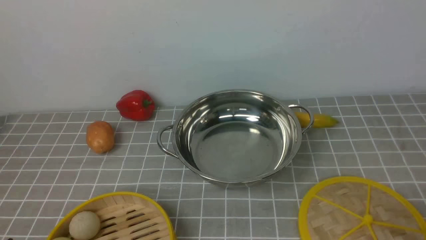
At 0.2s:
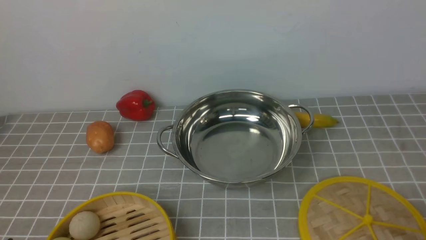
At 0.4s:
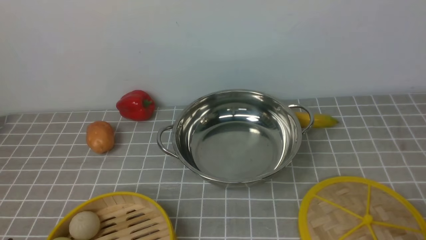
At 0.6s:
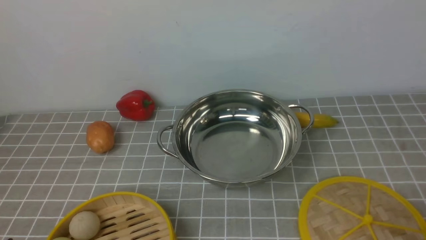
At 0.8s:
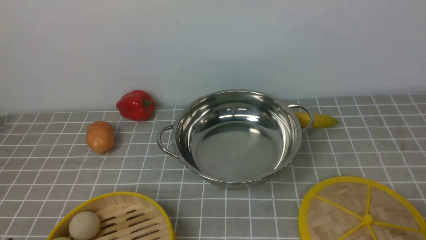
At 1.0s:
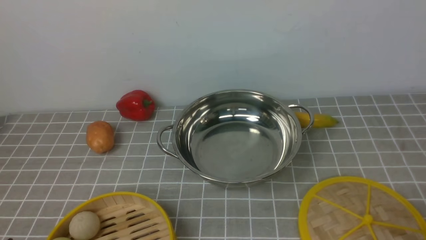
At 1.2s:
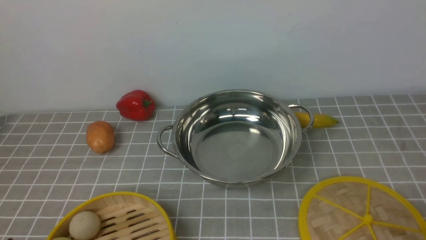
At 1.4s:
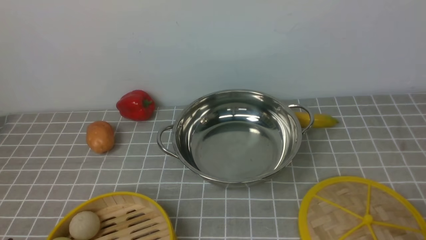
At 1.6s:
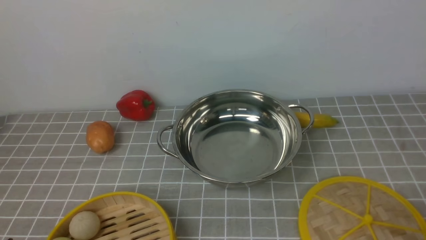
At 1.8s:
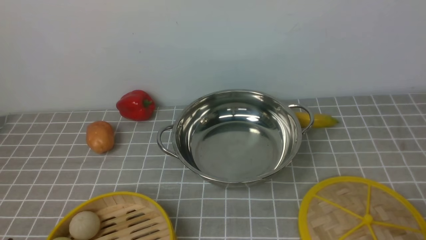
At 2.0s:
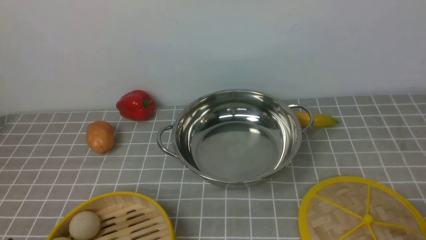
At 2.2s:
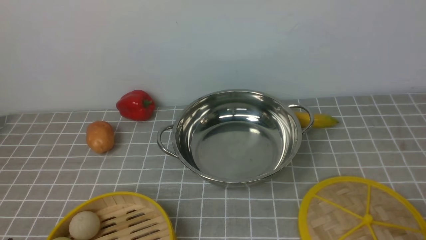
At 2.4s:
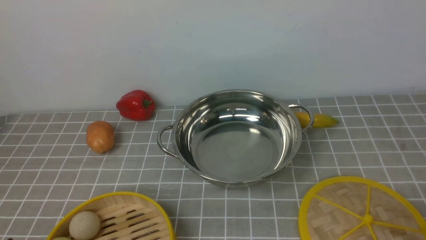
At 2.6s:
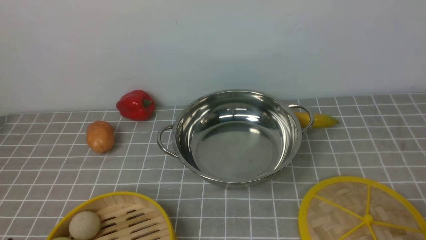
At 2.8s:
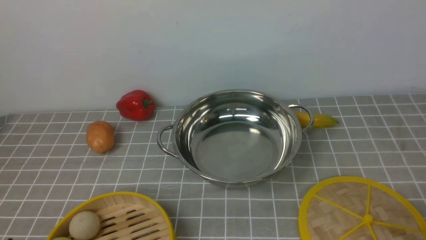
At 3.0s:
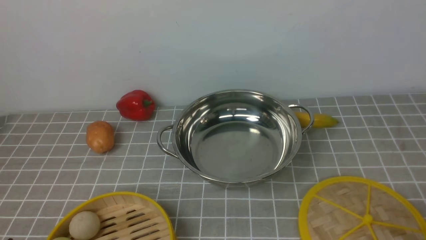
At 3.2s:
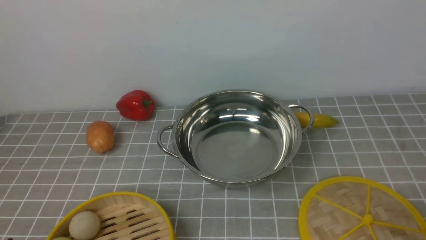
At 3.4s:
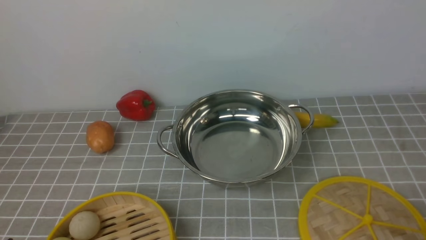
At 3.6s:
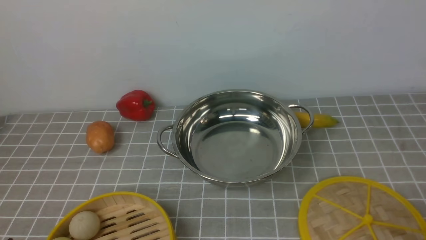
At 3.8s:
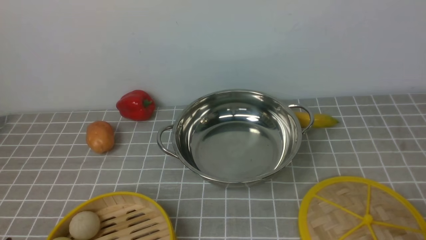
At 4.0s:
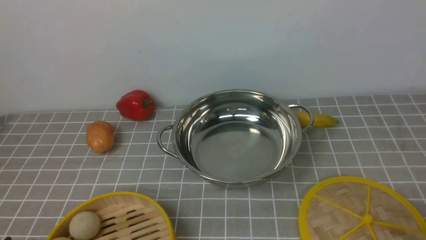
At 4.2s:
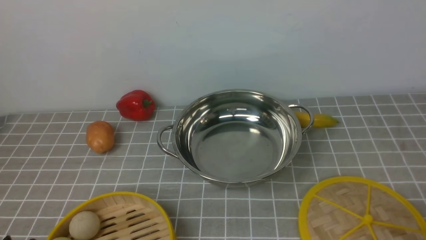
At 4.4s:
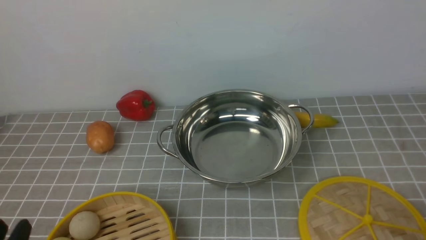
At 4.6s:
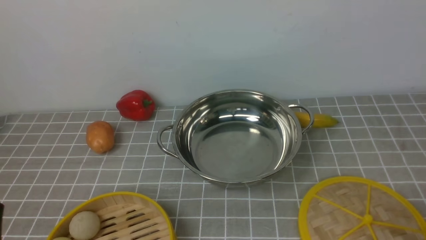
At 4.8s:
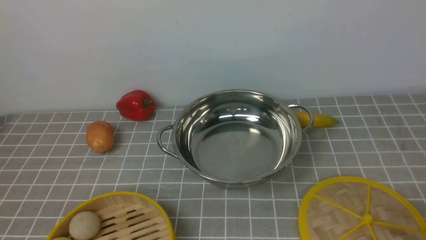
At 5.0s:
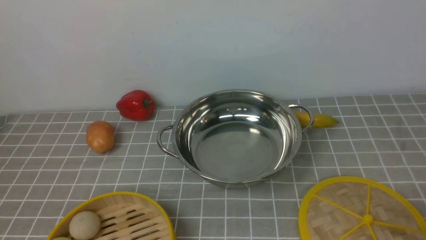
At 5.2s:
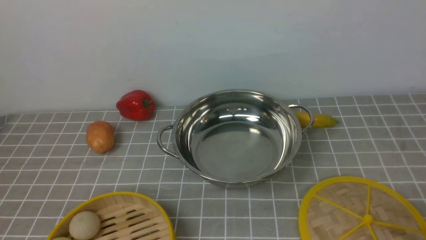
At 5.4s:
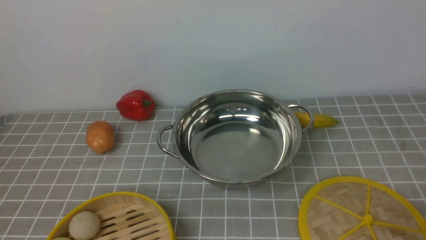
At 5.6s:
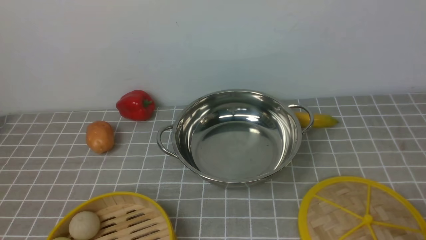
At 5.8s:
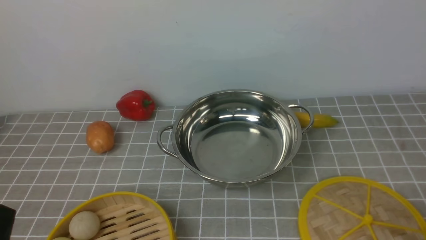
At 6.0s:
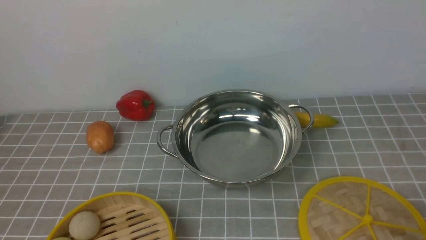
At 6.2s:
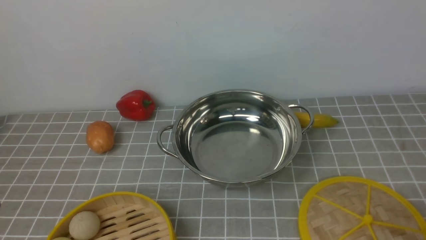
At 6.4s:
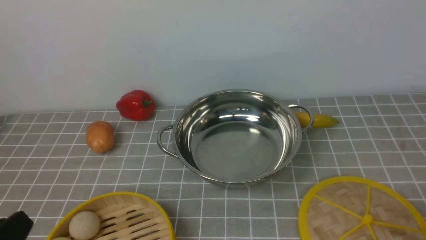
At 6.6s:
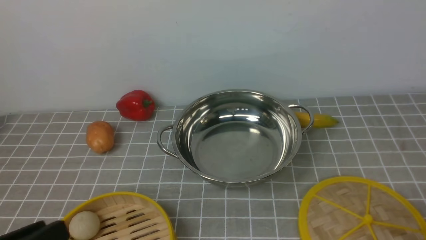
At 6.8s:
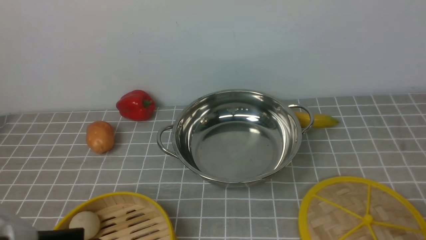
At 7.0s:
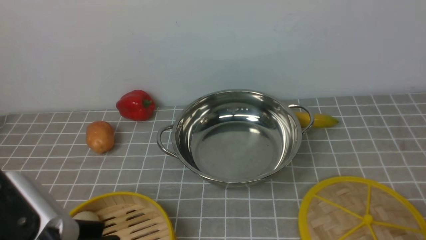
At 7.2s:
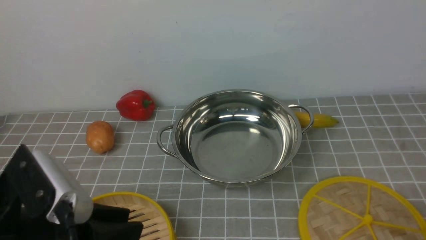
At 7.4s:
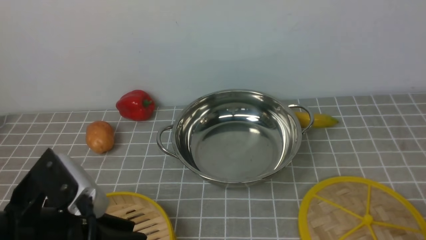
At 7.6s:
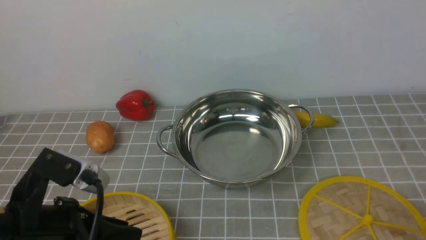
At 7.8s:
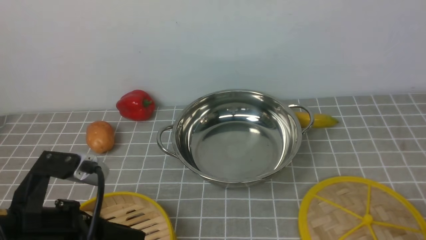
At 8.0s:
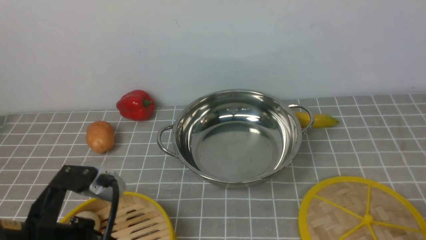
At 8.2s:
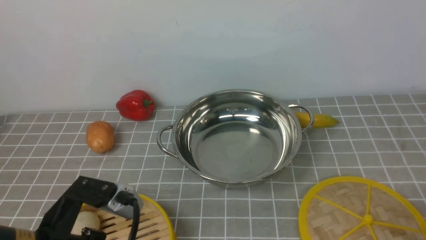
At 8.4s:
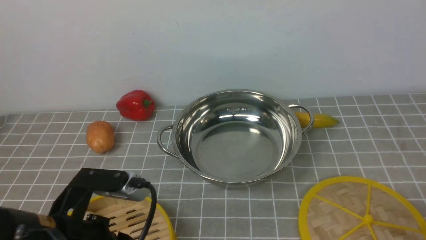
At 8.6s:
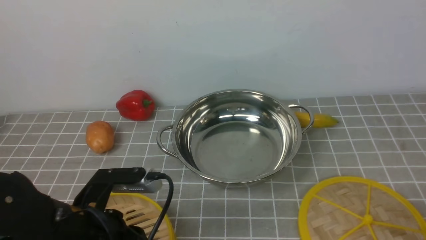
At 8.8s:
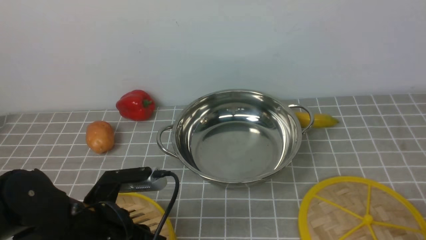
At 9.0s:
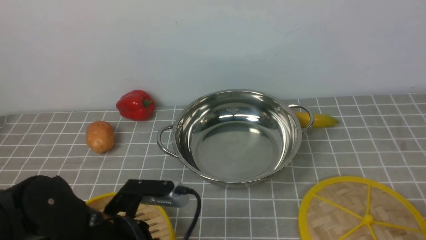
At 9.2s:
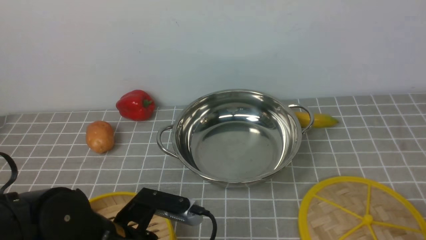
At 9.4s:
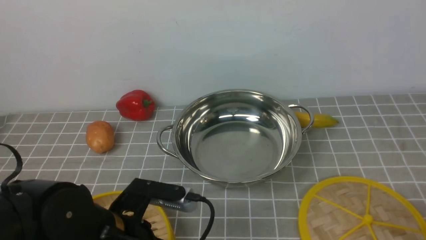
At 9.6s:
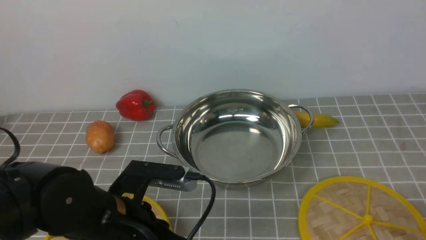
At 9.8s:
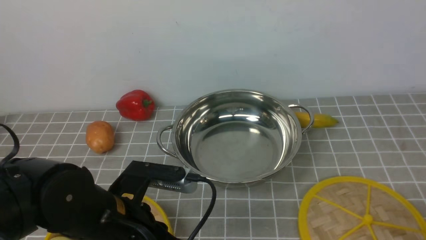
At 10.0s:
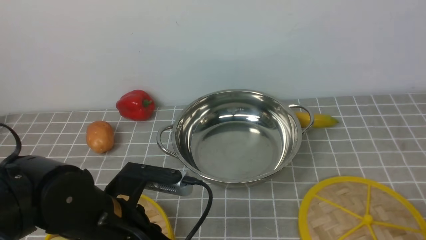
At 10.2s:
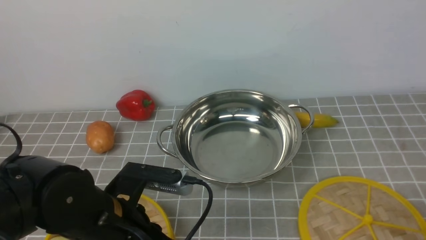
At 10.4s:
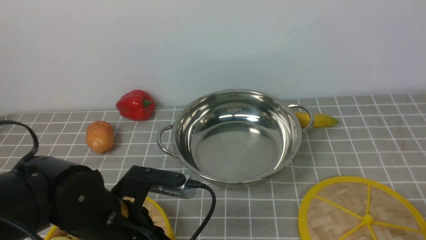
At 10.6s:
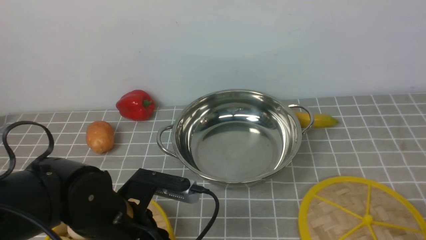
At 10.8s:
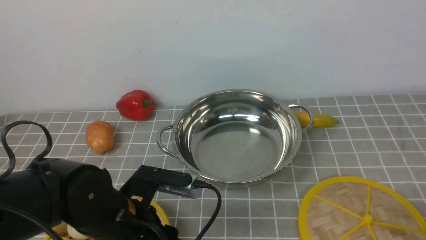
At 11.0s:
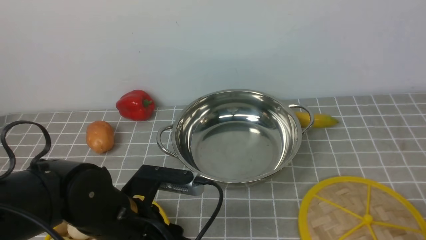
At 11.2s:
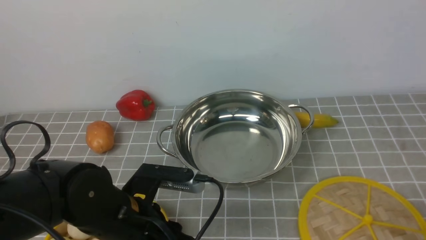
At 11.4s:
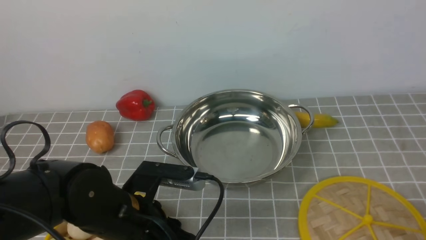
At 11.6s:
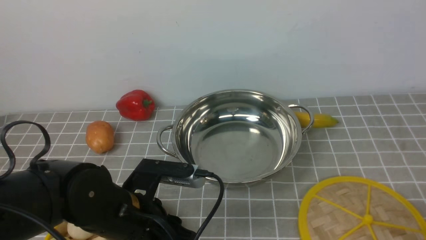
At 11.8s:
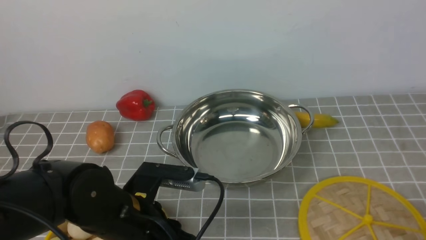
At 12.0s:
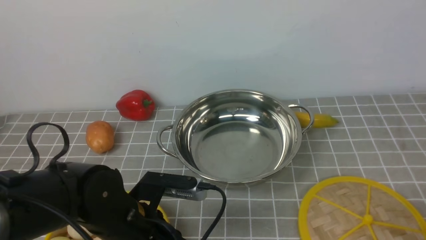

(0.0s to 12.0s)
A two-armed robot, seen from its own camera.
Task of the whole recording: place the steamer in the pot on the grey tablecloth, and put the lid on the steamer.
1.6s - 3.0s: Neither gripper changes place.
6.0s - 7.6s: The left gripper shifts about 10 cm forward and to the right.
7.6s - 9.0s: The left gripper moves downward, some 10 cm.
9.0s - 12.0s: The grippers make only small movements.

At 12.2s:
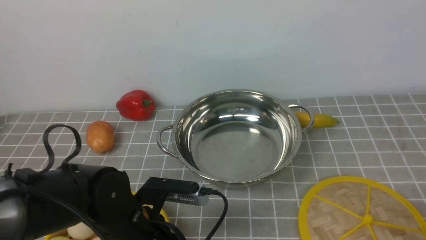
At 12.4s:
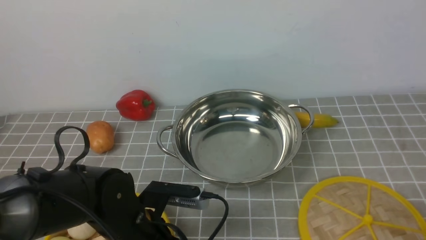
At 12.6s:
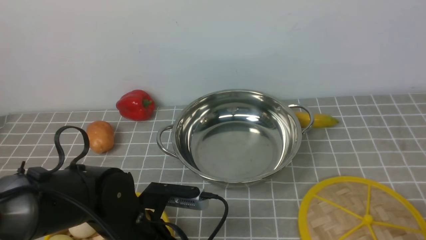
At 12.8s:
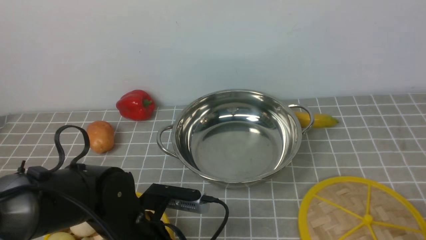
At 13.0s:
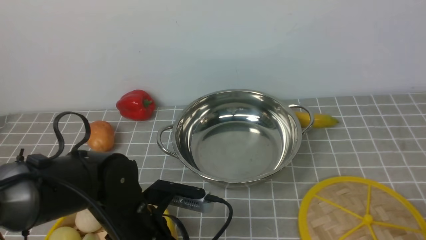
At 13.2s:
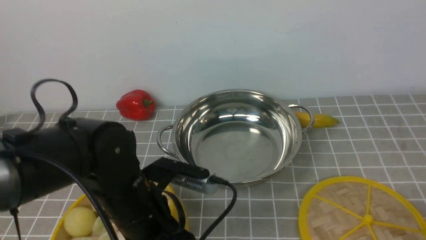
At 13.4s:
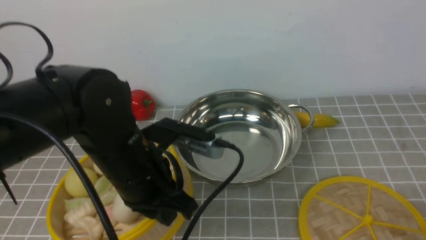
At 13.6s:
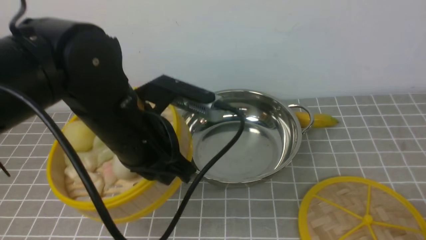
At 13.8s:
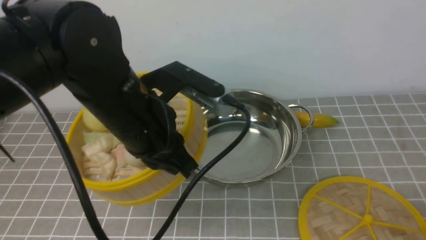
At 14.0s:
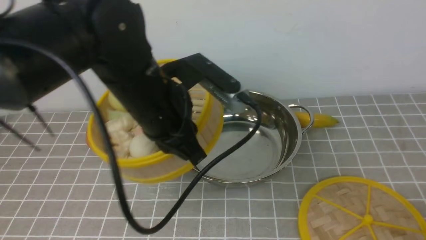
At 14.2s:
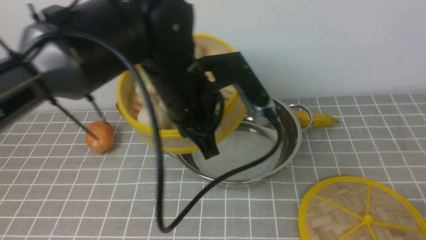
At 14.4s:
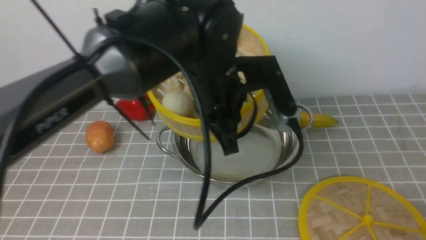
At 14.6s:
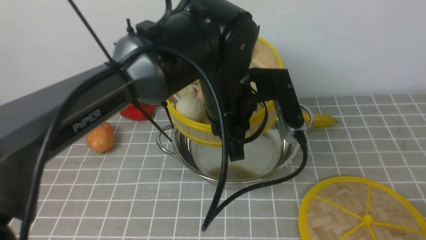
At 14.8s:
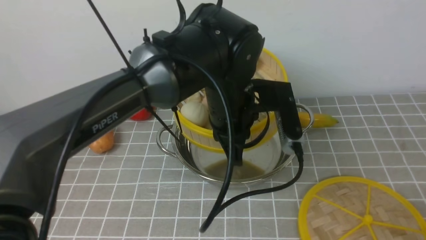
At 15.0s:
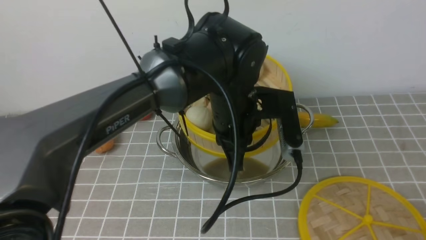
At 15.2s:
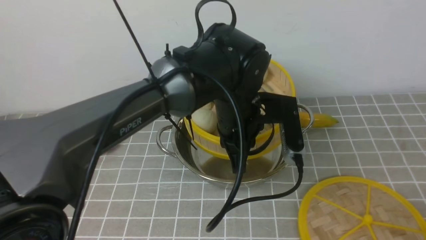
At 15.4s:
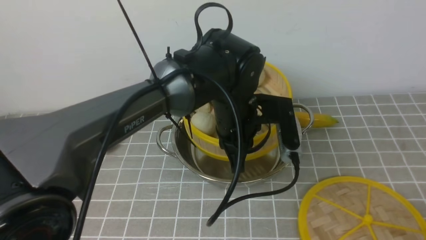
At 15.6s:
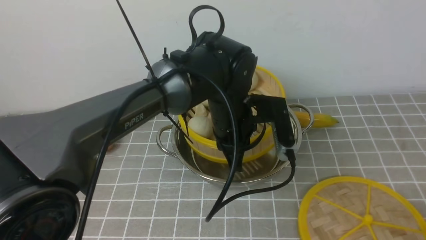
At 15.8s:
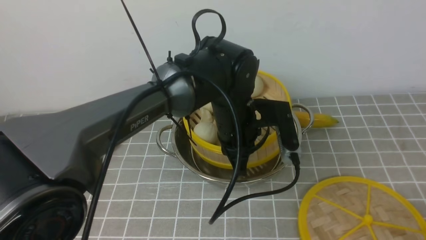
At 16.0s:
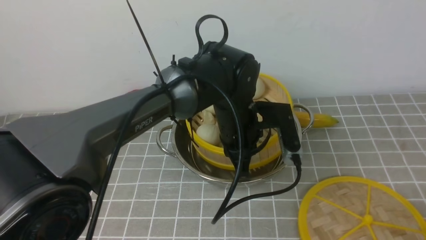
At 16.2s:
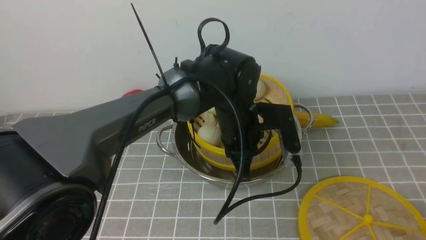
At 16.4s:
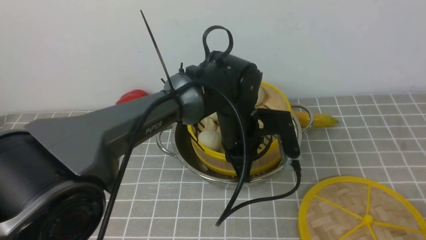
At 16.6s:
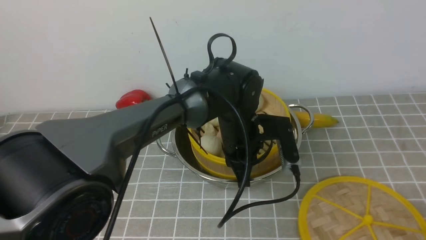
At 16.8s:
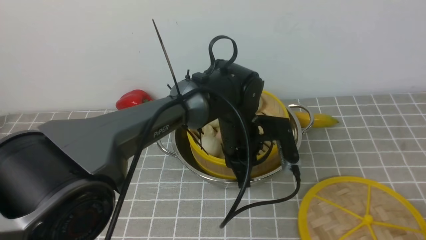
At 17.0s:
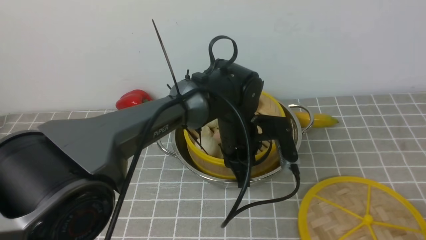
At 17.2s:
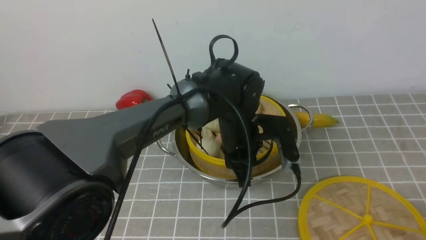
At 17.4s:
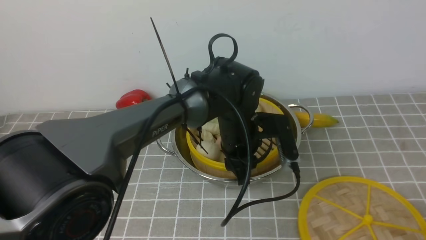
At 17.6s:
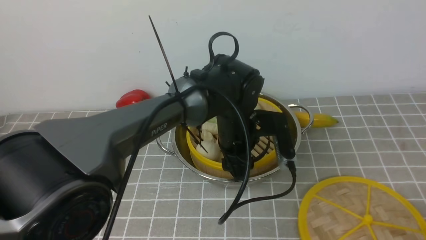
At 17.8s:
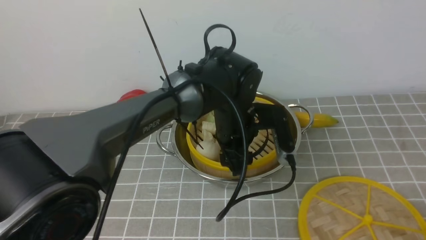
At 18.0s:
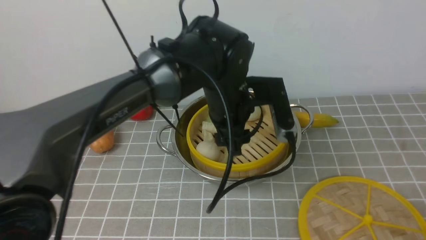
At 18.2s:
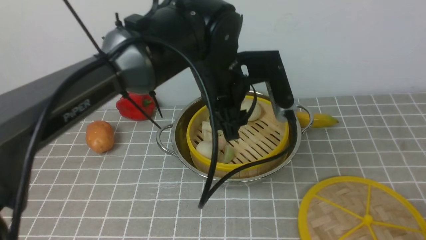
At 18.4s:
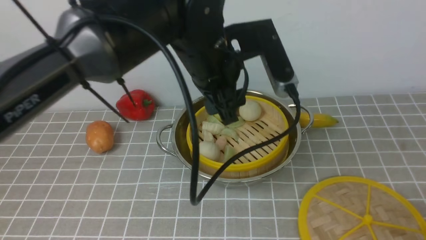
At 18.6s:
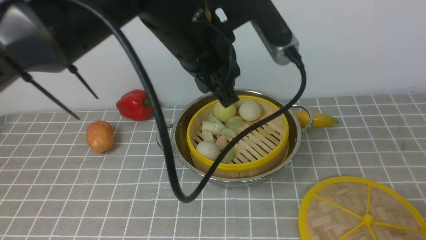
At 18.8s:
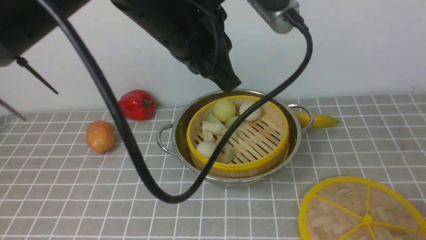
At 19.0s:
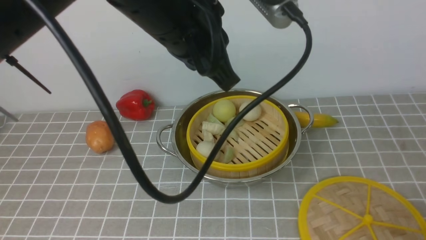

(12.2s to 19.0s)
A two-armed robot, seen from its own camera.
Task of the whole recording: place the steamer in the pot on the grey tablecloth, and put the lid on the steamer.
Step, 13.4s - 17.8s: use the left arm to put the steamer into the iron steamer pot in the middle.
12.2s - 13.6s: The left gripper goes about 10 cm upward, and closes its fingers.
13.6s - 15.0s: The left gripper goes approximately 15 cm to the right and forward.
15.0s - 16.2s: The left gripper travels downward by some 5 cm.
16.2s - 17.6s: The left gripper opens.
17.6s - 19.0s: The left gripper goes some 20 cm upward, and closes its fingers.
